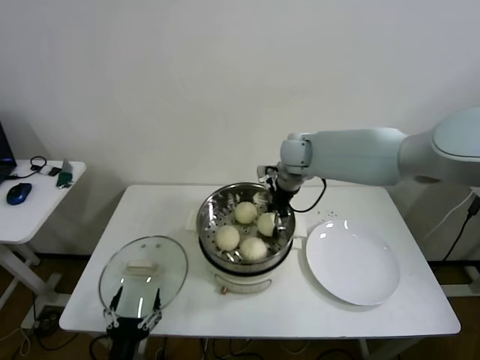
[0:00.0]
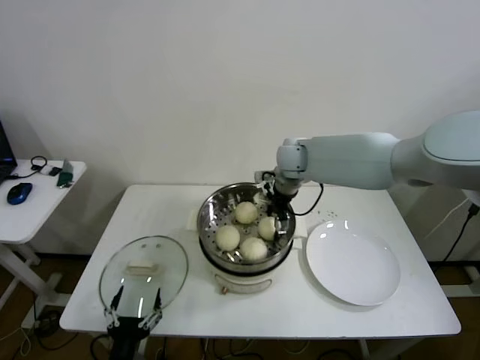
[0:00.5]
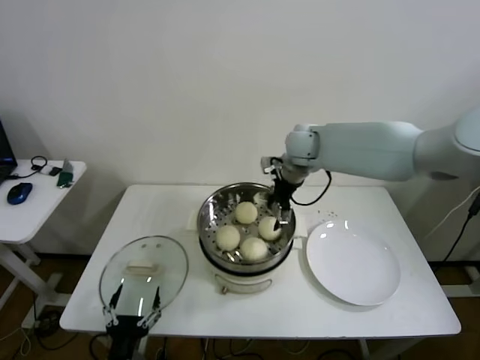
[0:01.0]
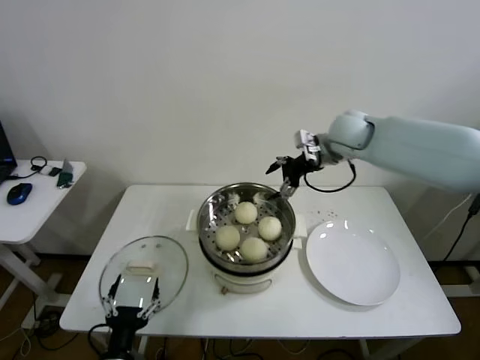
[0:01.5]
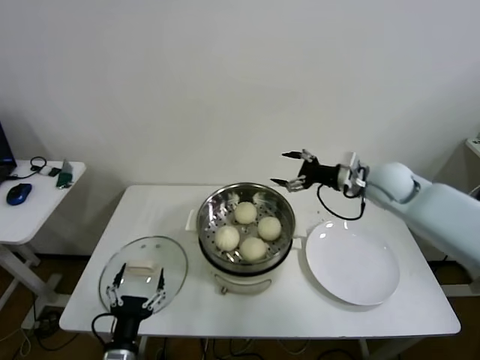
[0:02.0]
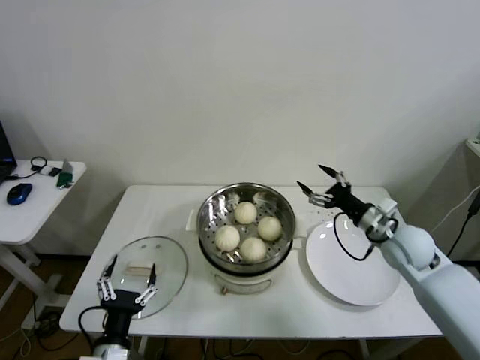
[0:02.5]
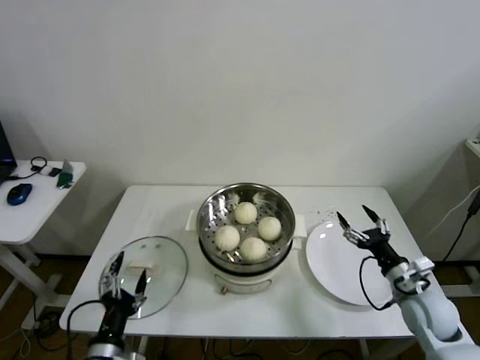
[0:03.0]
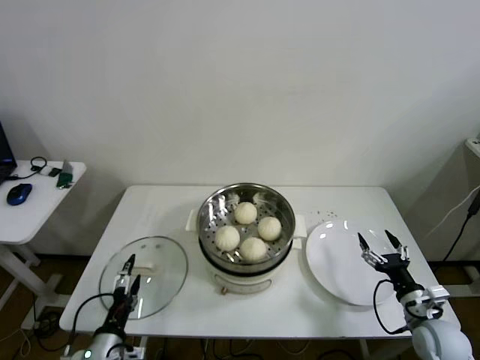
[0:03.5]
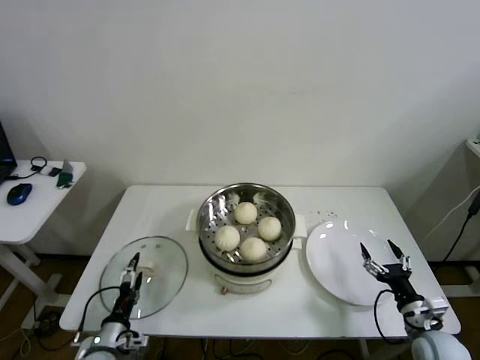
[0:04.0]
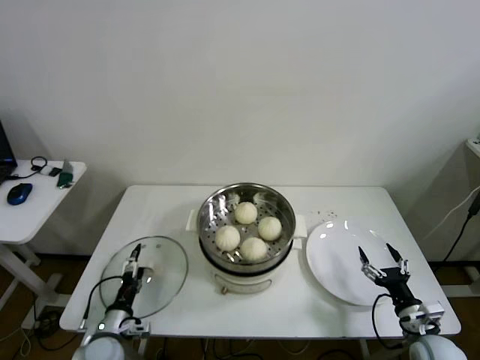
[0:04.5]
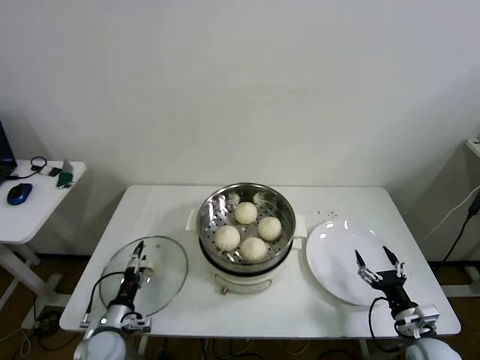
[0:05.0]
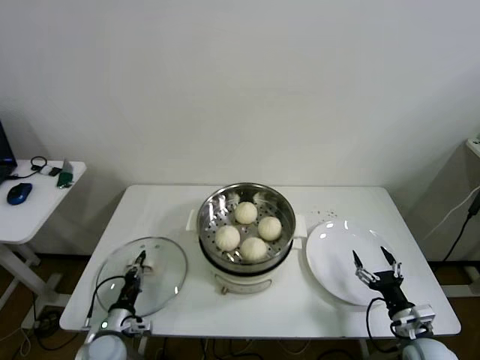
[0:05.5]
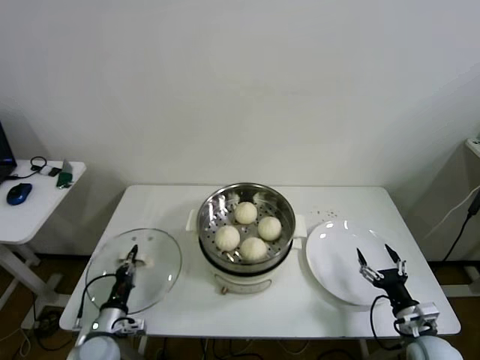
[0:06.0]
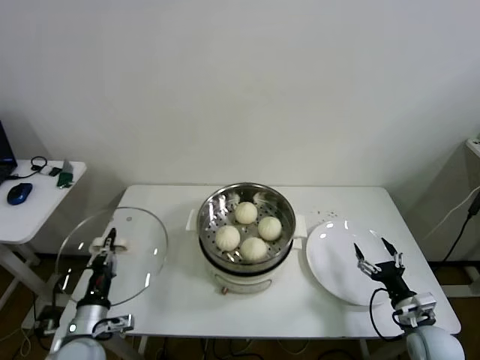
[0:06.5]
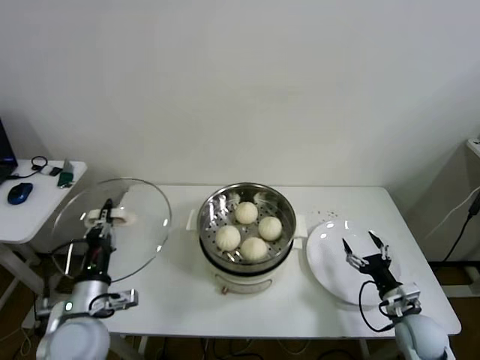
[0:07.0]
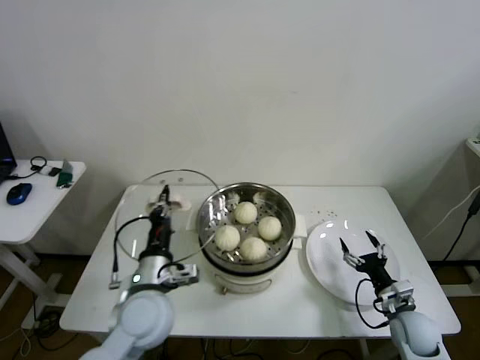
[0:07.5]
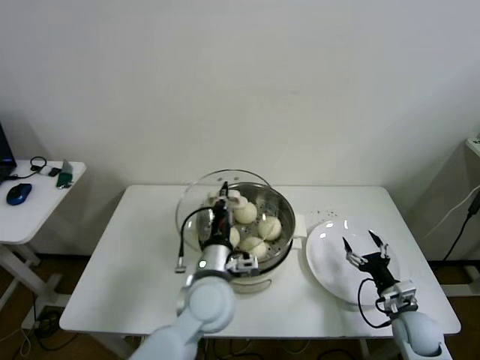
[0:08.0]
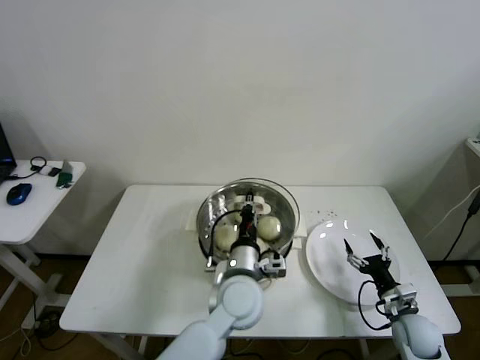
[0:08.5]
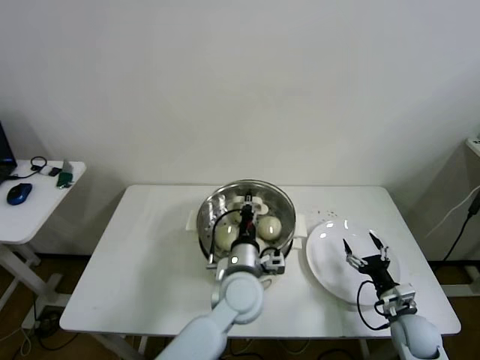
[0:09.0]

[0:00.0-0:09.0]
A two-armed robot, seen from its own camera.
Step, 0:01.0 to 0:05.5: Grasp the pot lid with left gripper.
0:00.0 to 0:02.0: The right gripper heads to the right and backward, covering approximately 20 cm.
0:02.0 to 0:04.5: The right gripper shifts some 35 cm backward and downward. The left gripper shifts about 15 cm forward, downward and to the left.
0:04.5 to 0:07.0: The left gripper travels upward by some 15 cm, and closes its fingers.
0:07.0 to 0:09.0: The left gripper shifts roughly 30 cm to the right.

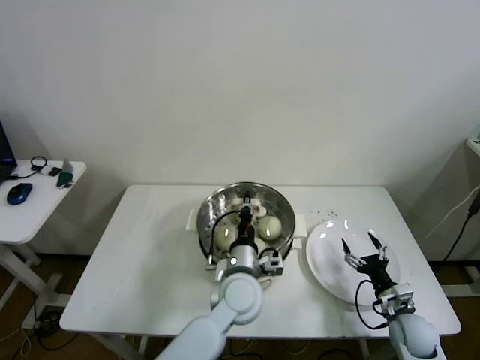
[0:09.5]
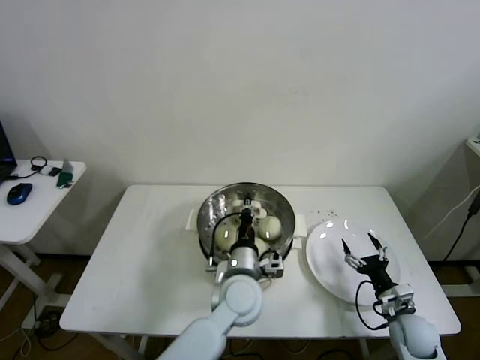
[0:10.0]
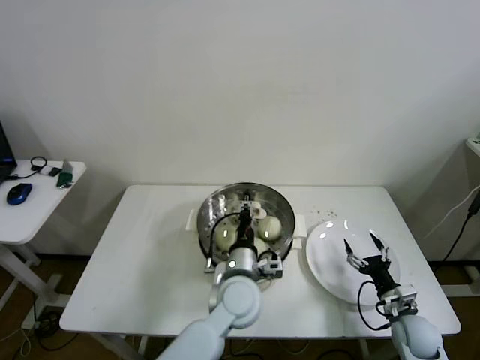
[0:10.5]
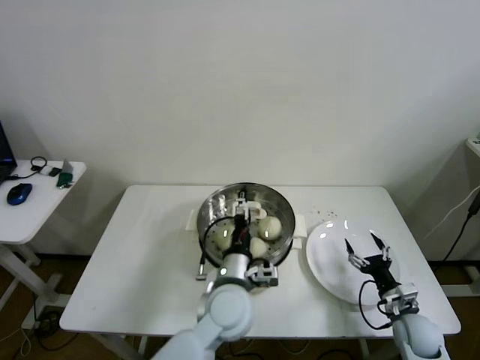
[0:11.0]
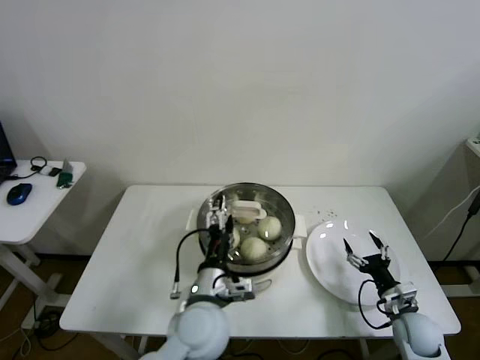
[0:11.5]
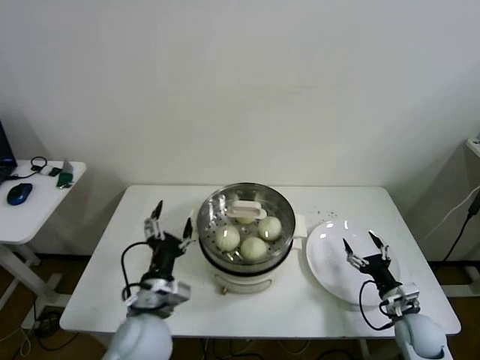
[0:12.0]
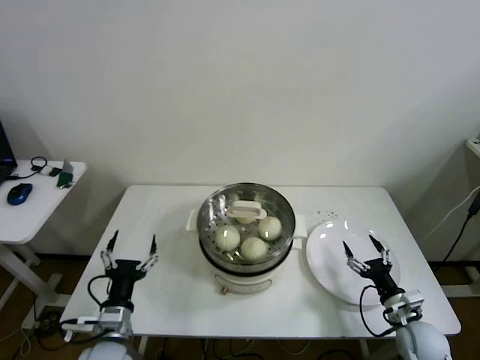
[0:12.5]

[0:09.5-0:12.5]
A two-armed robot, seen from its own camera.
0:09.5 to 0:11.0: The left gripper opens its fingers.
0:11.0 to 0:12.5: The left gripper goes roughly 25 cm to the left.
